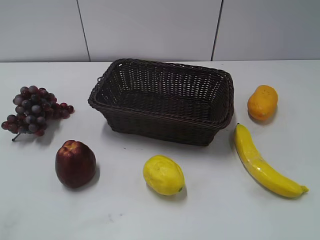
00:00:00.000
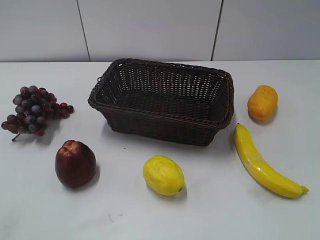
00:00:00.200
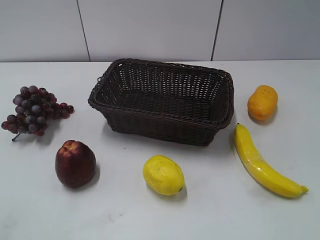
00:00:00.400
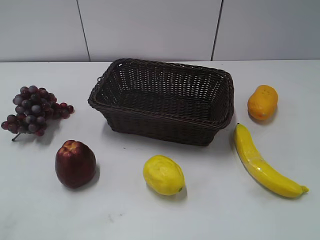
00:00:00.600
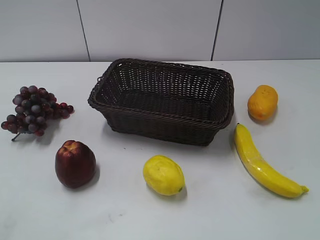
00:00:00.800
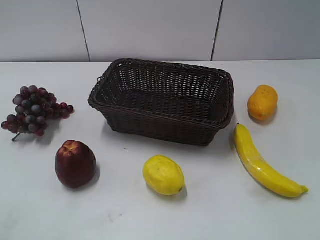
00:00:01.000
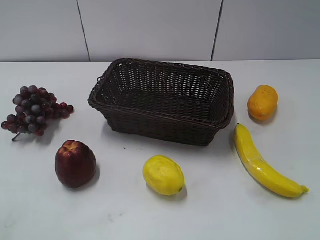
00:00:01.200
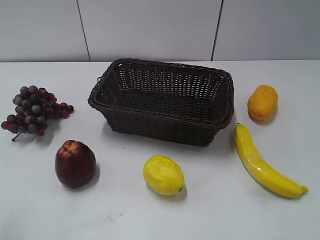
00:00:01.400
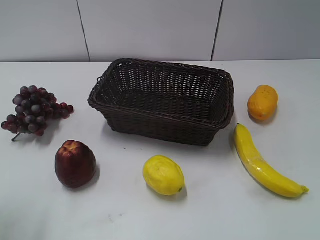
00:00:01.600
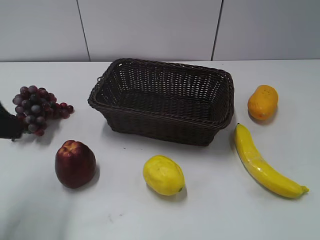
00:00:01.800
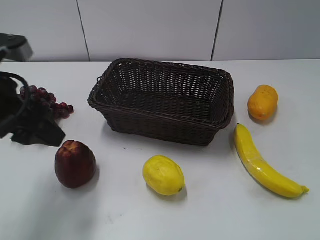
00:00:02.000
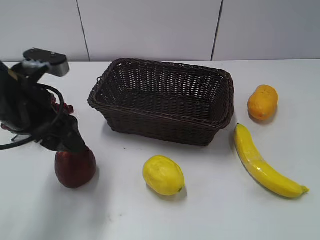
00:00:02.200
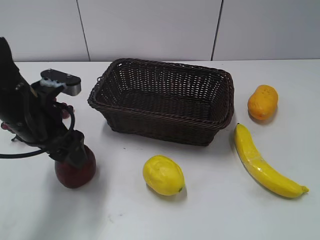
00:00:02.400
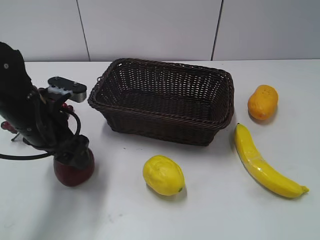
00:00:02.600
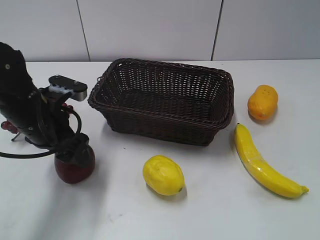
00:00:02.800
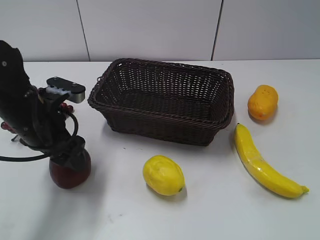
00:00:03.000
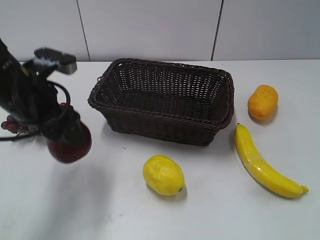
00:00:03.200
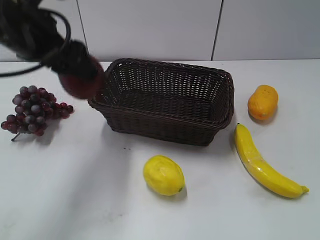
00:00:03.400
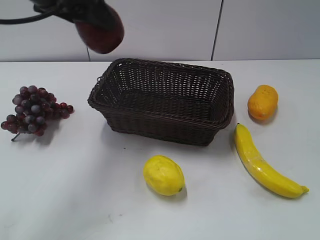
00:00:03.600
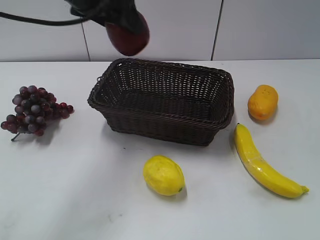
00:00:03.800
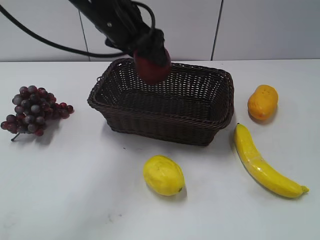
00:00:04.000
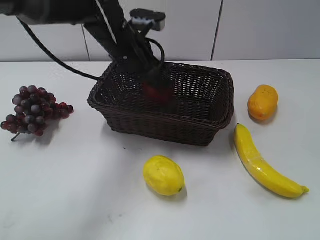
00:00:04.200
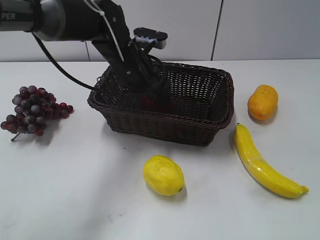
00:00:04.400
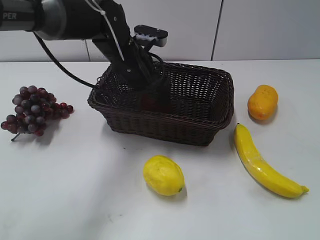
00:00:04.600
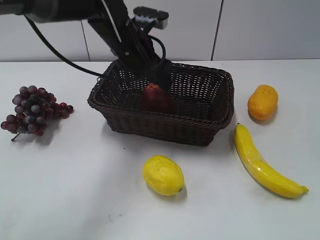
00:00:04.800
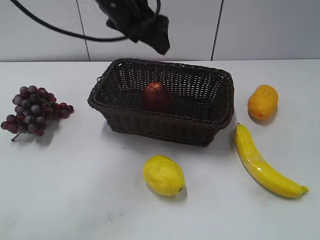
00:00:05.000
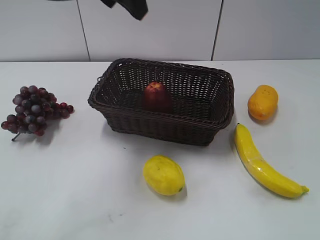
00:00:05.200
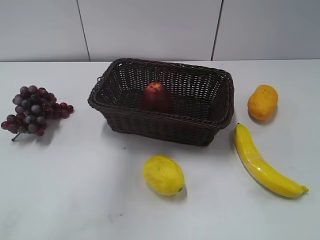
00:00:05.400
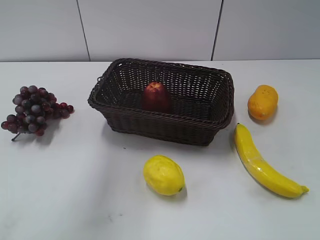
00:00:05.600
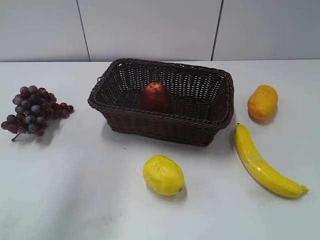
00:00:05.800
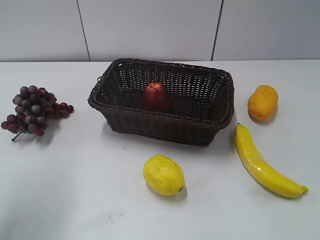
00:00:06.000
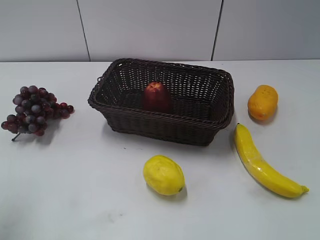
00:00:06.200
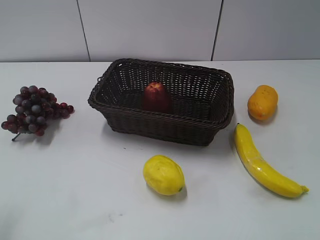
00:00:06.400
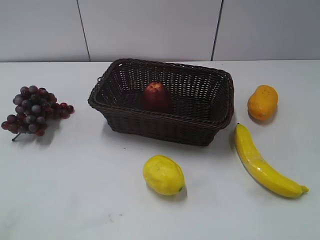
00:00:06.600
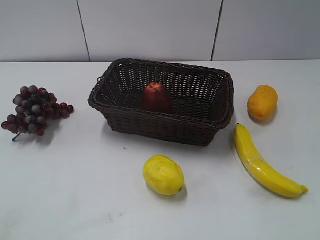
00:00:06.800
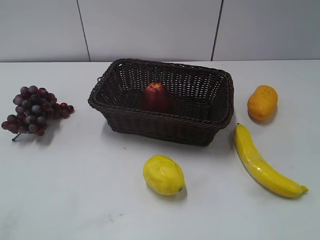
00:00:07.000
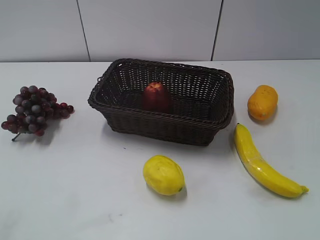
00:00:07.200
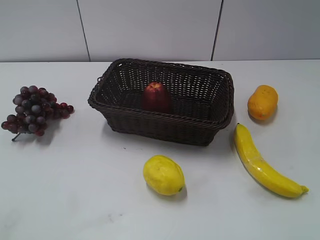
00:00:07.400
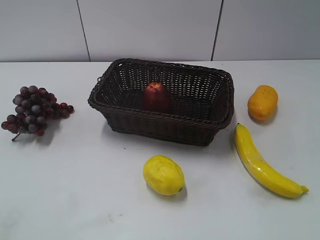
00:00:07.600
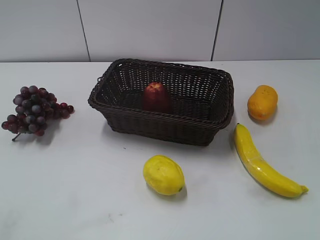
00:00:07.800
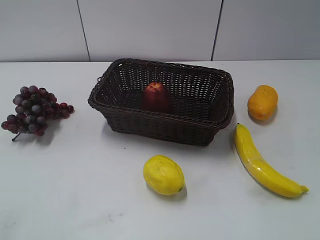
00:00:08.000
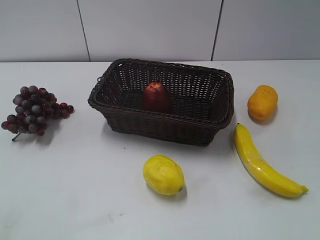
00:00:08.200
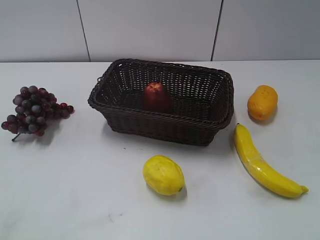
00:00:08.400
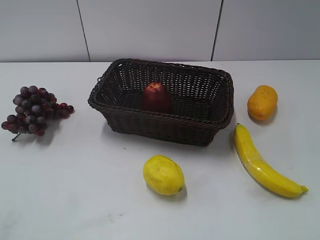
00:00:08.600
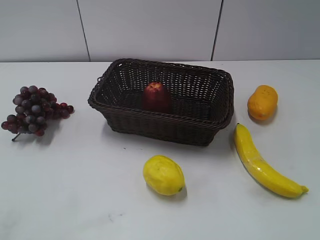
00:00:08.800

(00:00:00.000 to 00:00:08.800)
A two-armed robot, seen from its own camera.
Step, 00:00:01.800 - 00:00:02.600: Grasp the apple with left gripper.
Step, 00:00:02.800 - 00:00:04.400: Place the apple in the basket with left gripper.
00:00:01.400 - 00:00:03.000: The left gripper is displaced forward, downward and to the right by about 25 cm, and closes its fingers.
00:00:03.000 - 00:00:04.400: The left gripper goes roughly 20 cm to the right and forward, and moves some 20 cm upward and comes back.
00:00:04.400 - 00:00:05.800: The left gripper shifts roughly 30 cm upward, to the left and backward, and opens and closes again.
00:00:05.800 - 00:00:07.400: The left gripper travels backward, downward and to the left by some 30 cm.
00:00:07.400 - 00:00:08.800: The two grippers keep their place.
